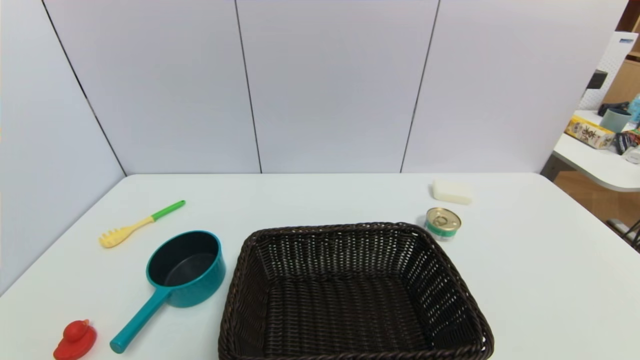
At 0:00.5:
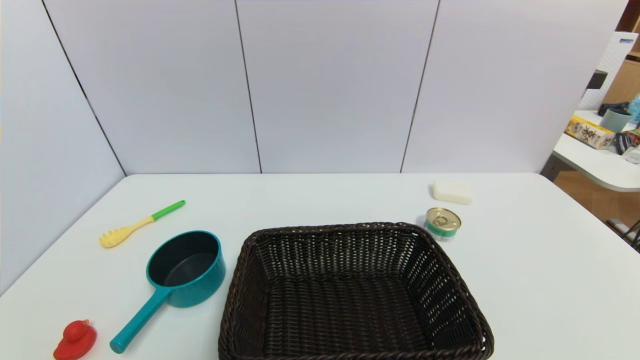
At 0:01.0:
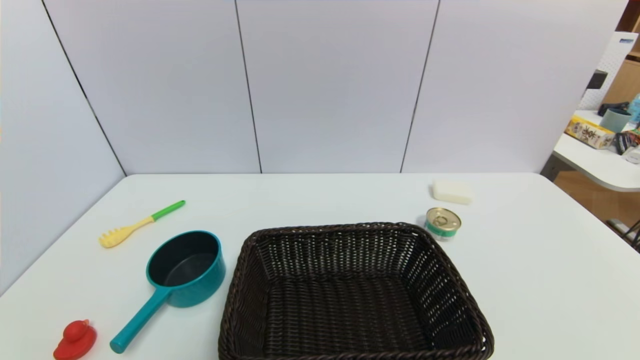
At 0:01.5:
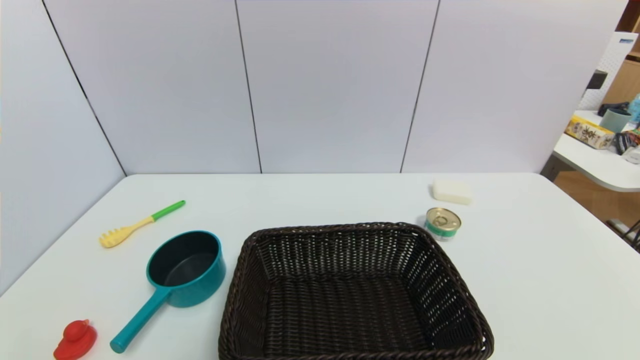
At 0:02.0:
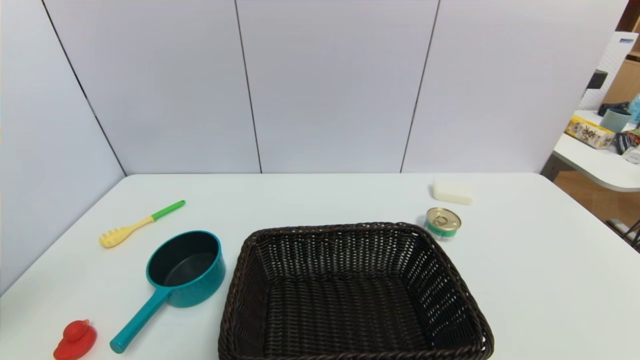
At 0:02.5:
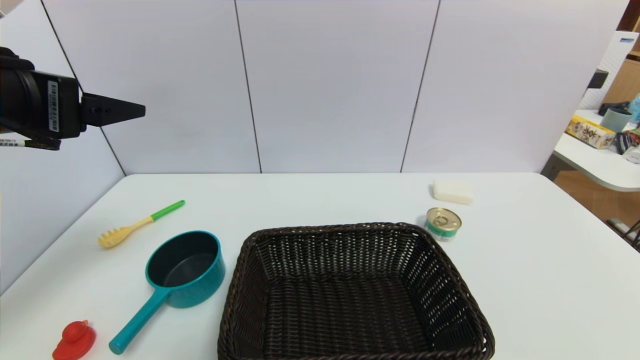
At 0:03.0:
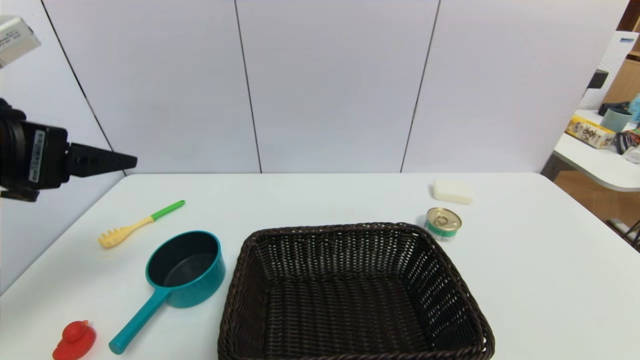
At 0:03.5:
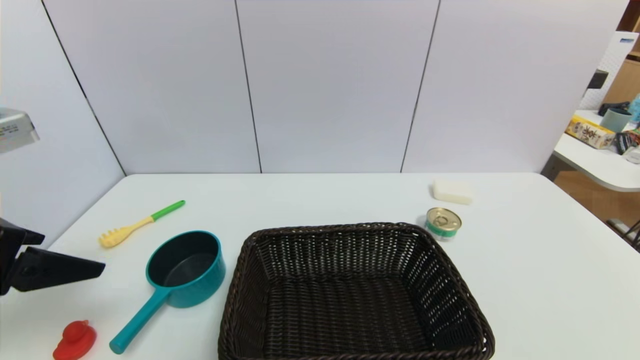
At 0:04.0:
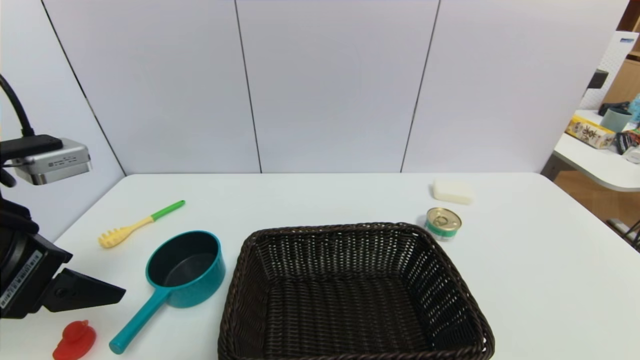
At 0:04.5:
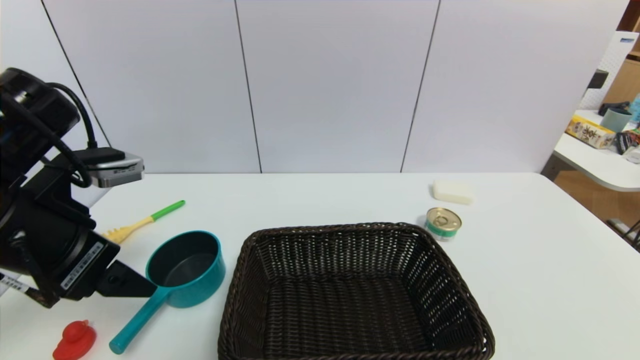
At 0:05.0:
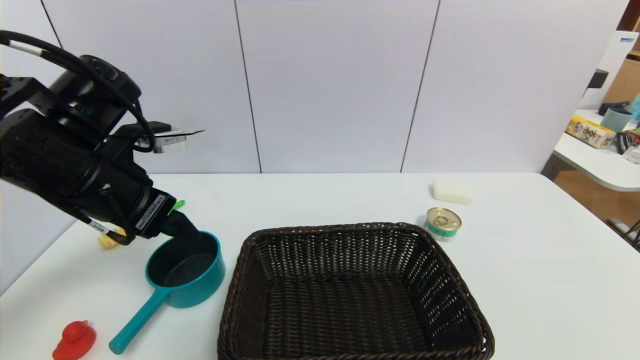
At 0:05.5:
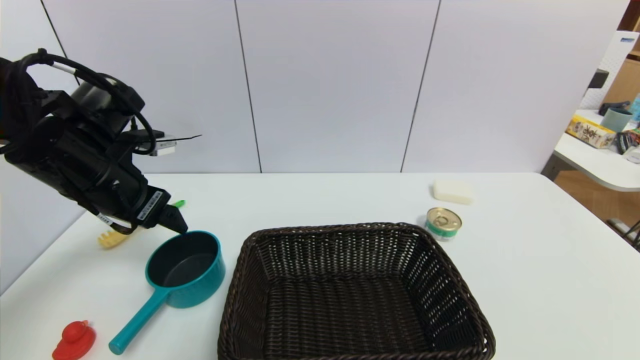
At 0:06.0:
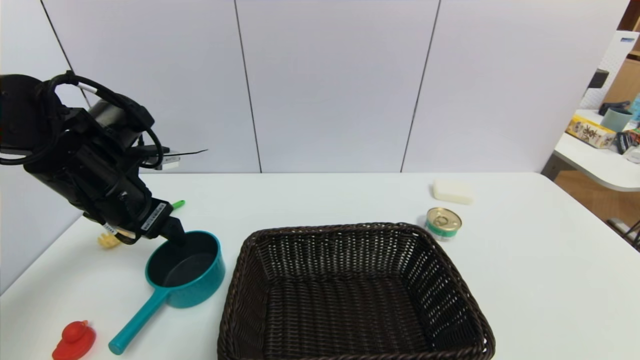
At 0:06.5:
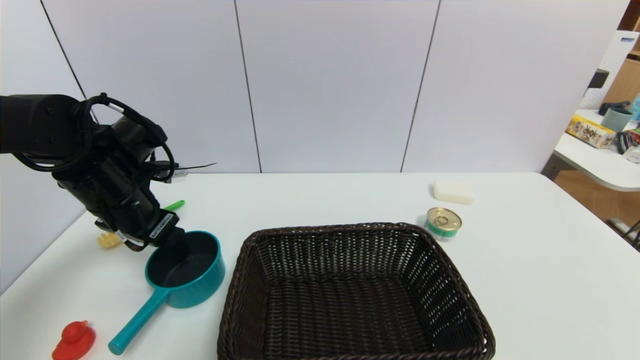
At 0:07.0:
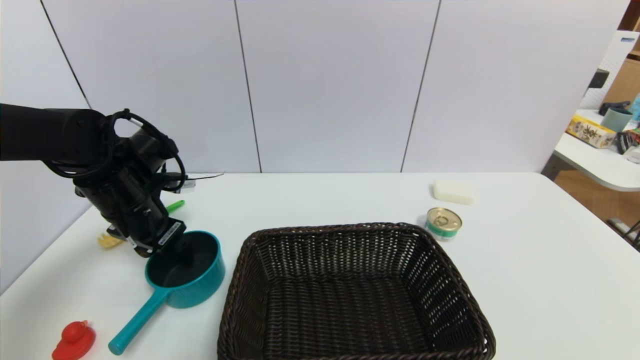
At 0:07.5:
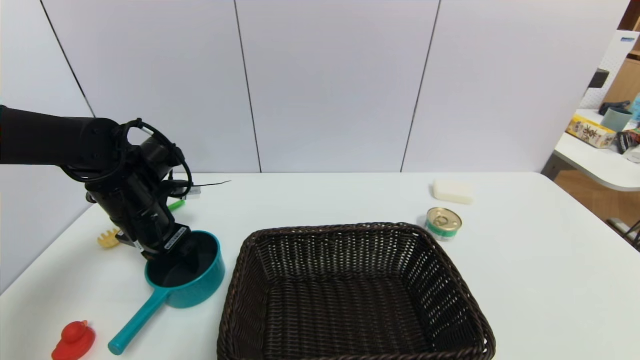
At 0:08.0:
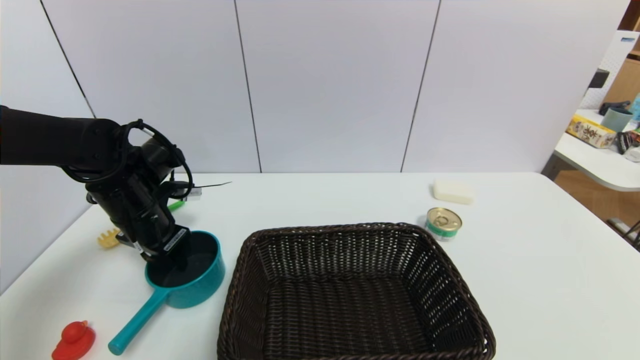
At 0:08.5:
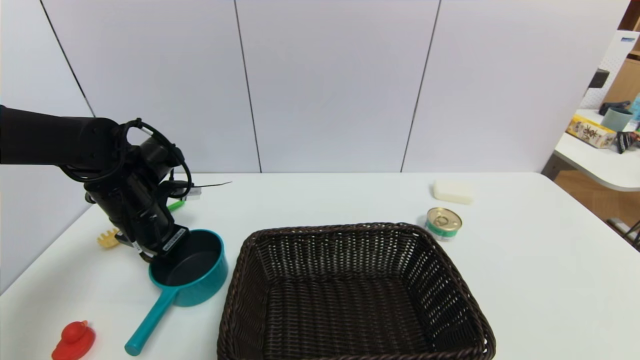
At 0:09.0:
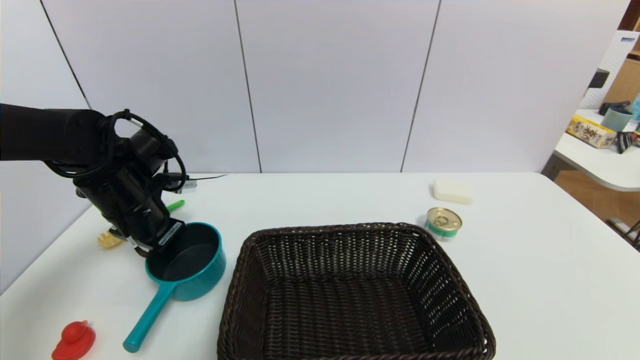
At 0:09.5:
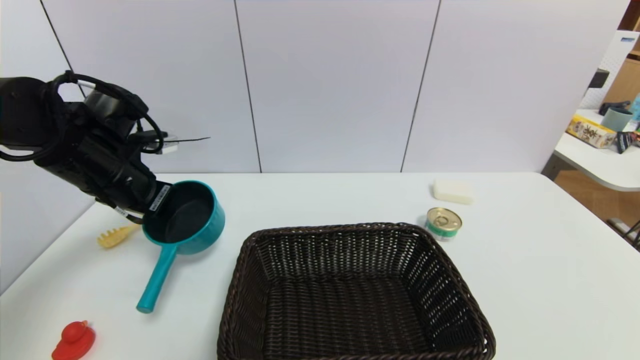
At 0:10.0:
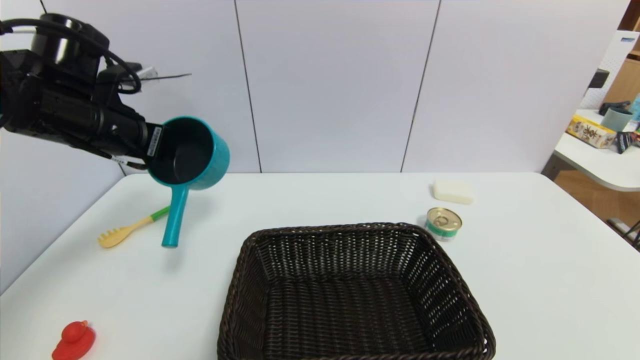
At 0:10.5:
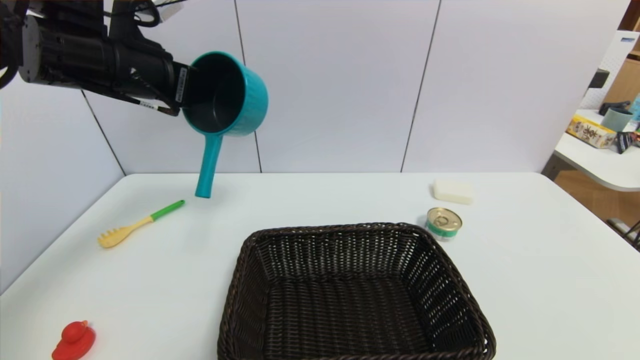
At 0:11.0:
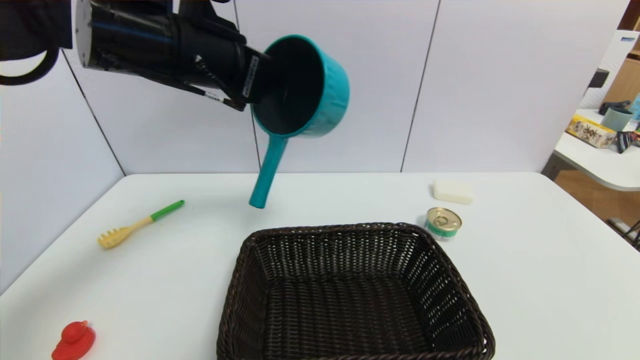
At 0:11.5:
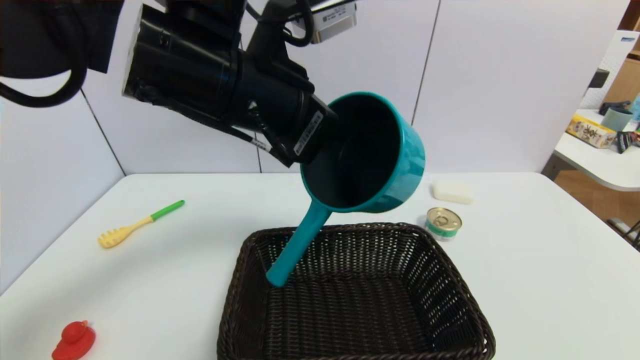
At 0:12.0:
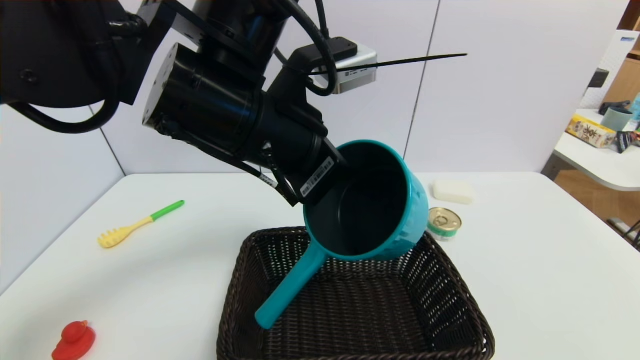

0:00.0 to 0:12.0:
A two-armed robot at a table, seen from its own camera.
Task of the whole recording: use a gripper to pick the target object and place on the brown basket.
Step, 0:00.0 to 0:08.5: Grasp the blue pot with the left gripper.
0:02.0 to 0:04.0: The left gripper is displaced downward and forward by some 10 cm.
0:04.0 to 0:06.0: The left gripper moves forward and downward, some 15 cm.
0:06.0 to 0:08.0: The left gripper moves downward, roughly 5 cm, and closes its fingers.
0:08.0 to 0:10.0: The left gripper is displaced upward by approximately 15 cm, and closes its fingers.
0:10.0 to 0:12.0: The left gripper shifts about 20 cm to the right.

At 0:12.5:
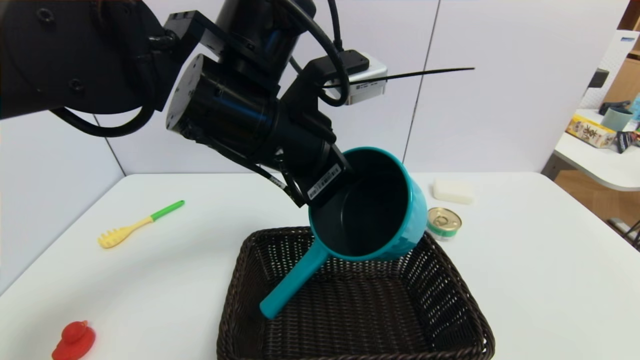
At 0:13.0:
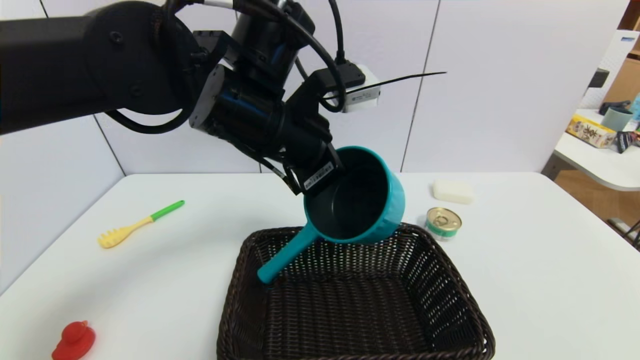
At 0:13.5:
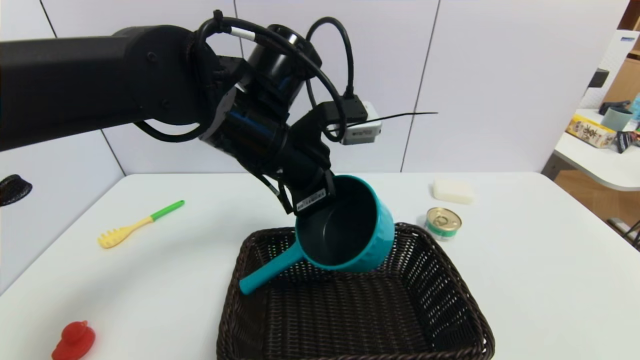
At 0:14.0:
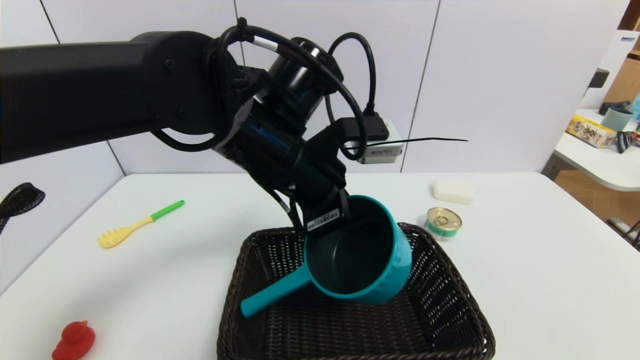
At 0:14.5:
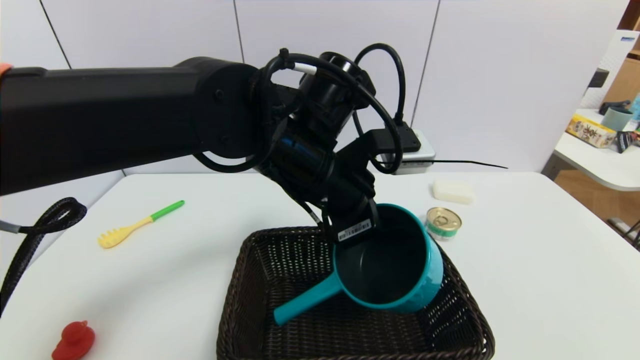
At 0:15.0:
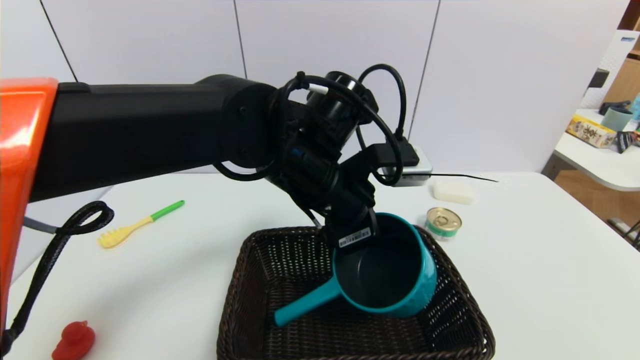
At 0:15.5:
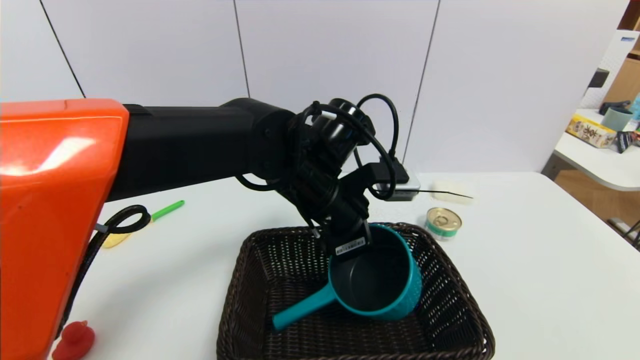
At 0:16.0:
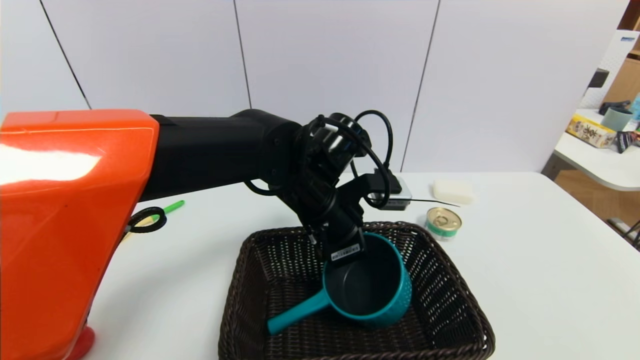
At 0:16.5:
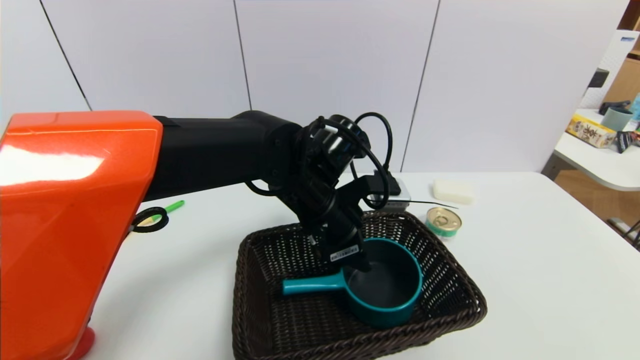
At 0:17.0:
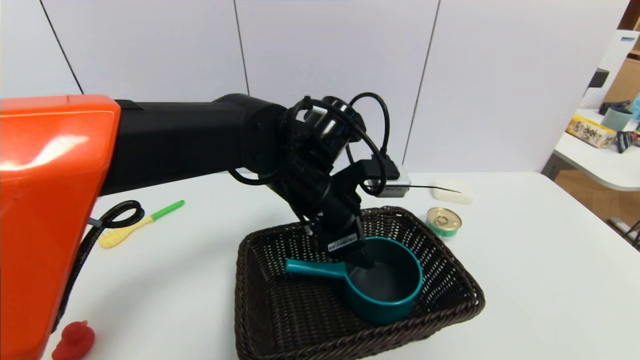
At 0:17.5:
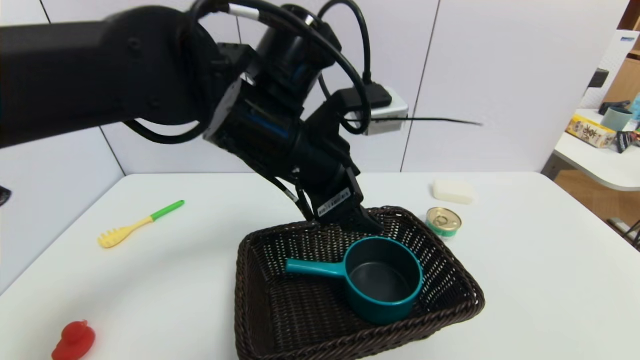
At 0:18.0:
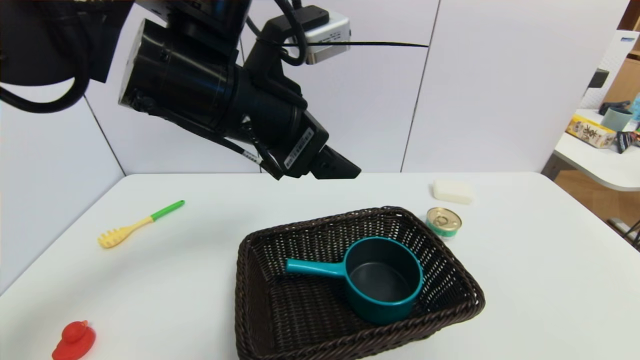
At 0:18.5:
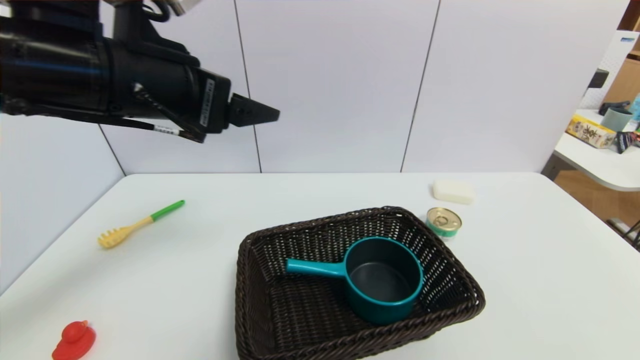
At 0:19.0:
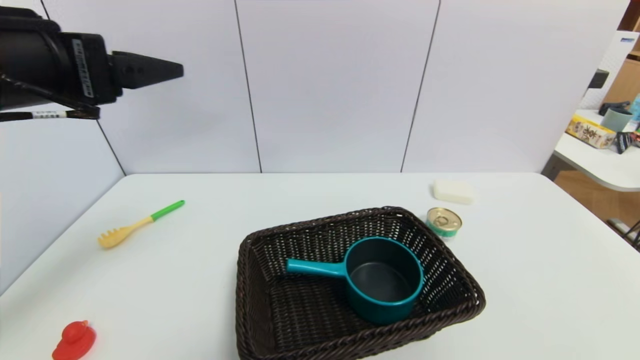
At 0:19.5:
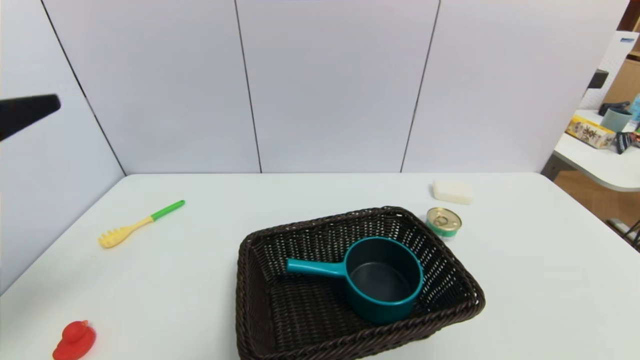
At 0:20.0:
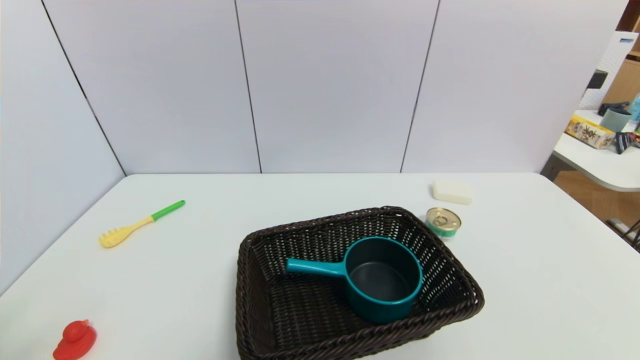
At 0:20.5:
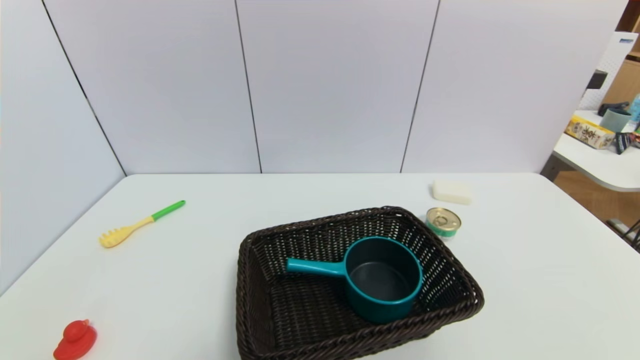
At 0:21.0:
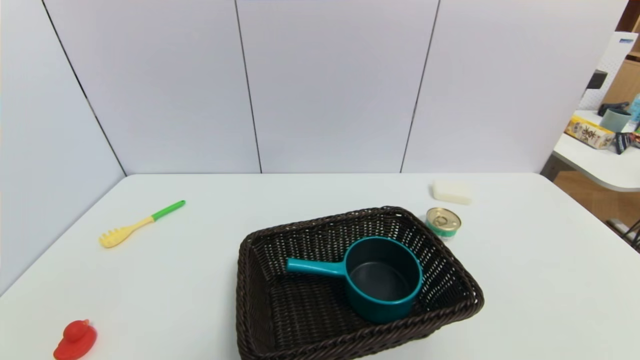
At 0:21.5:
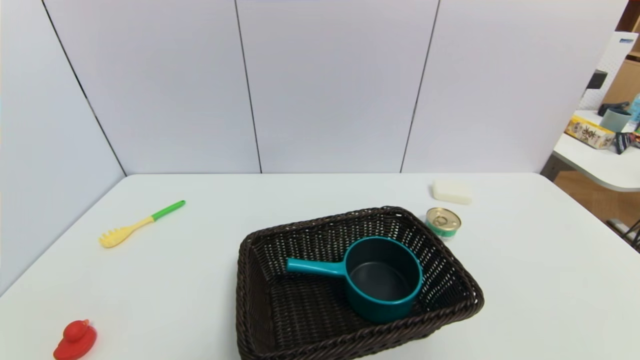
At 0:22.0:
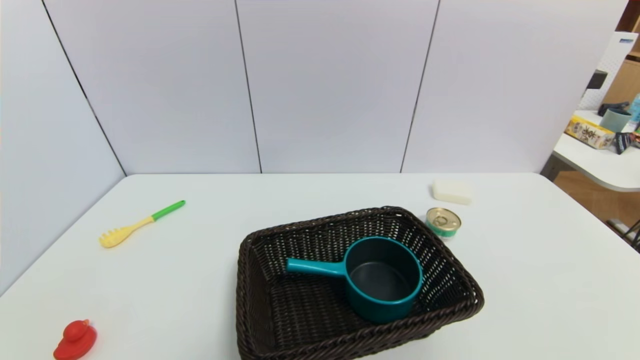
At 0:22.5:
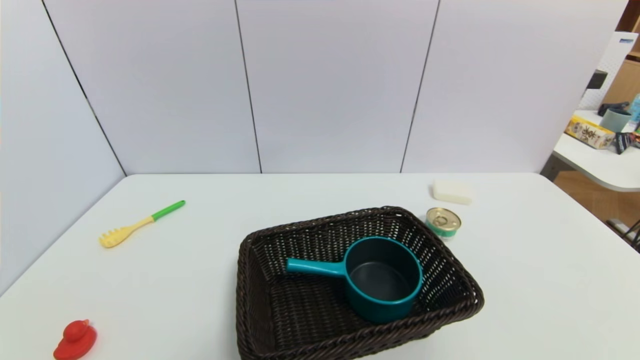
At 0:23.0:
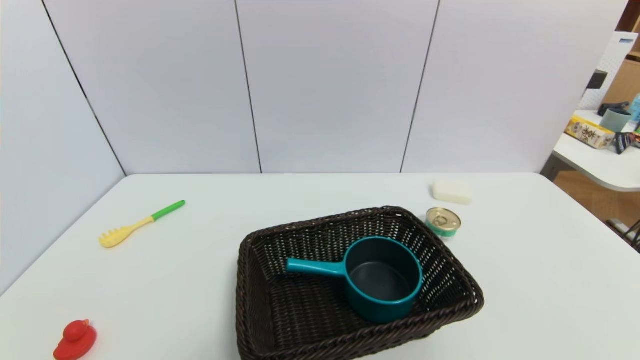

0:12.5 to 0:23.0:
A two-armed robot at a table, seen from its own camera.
Task of the whole recording: use a gripper to pick the target object and place on the brown basket.
Step, 0:12.5 to 0:16.5: Place the blue pot into the basket with the left gripper.
0:12.5 to 0:14.5: The left gripper goes about 5 cm downward.
0:14.5 to 0:16.5: The left gripper is displaced downward by about 5 cm, and opens.
0:16.5 to 0:19.0: The left gripper goes roughly 30 cm to the left, upward and backward, and opens.
0:19.0 to 0:21.0: The left gripper goes some 30 cm downward and backward.
